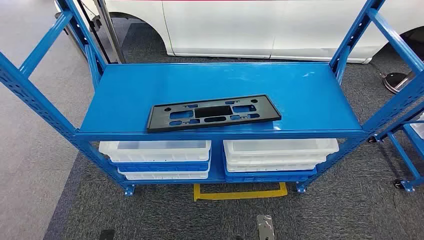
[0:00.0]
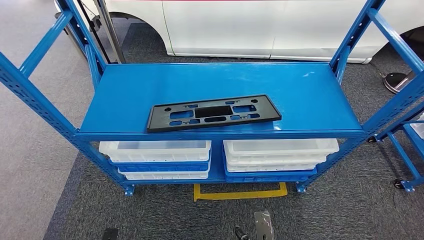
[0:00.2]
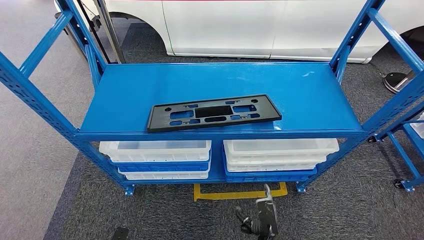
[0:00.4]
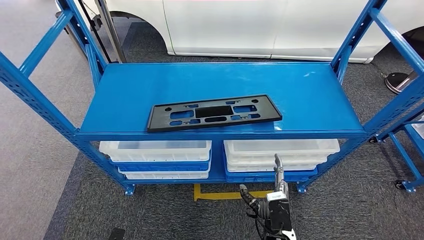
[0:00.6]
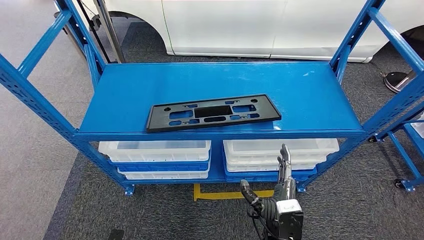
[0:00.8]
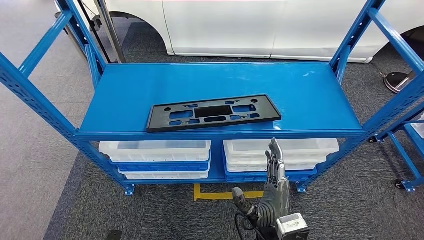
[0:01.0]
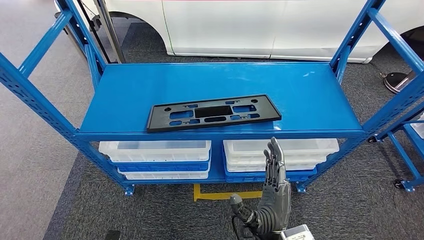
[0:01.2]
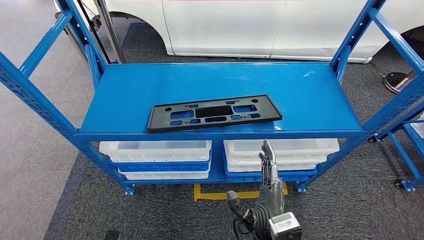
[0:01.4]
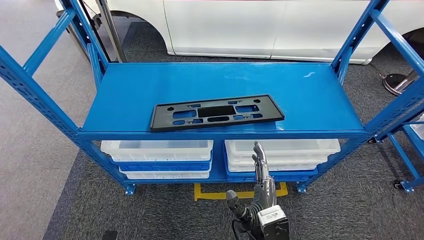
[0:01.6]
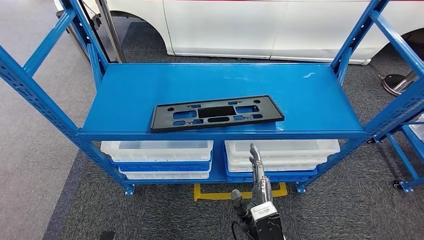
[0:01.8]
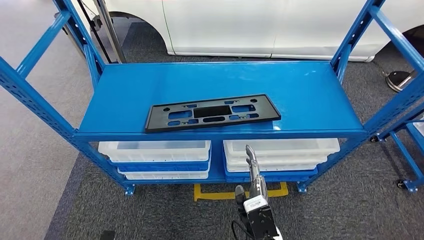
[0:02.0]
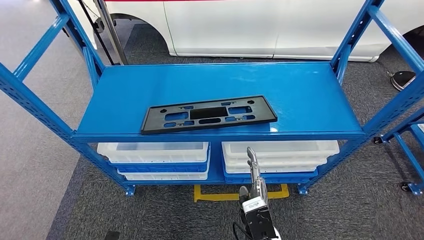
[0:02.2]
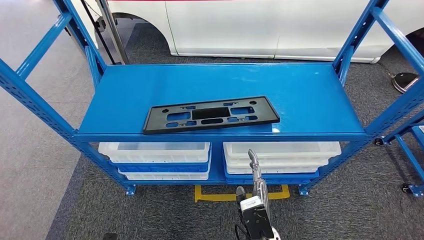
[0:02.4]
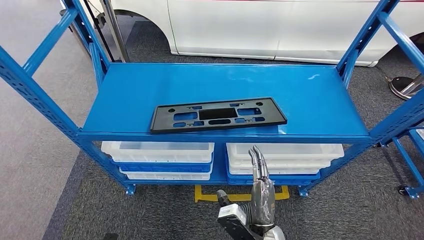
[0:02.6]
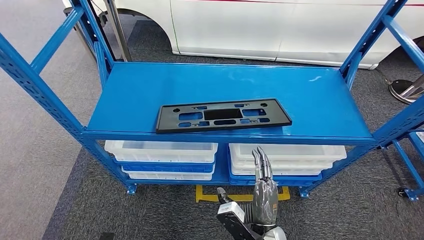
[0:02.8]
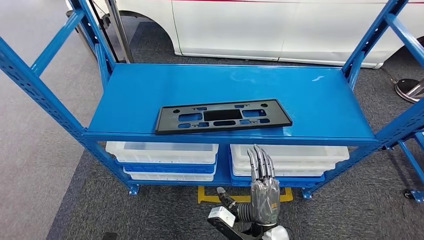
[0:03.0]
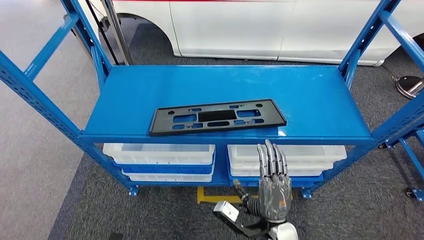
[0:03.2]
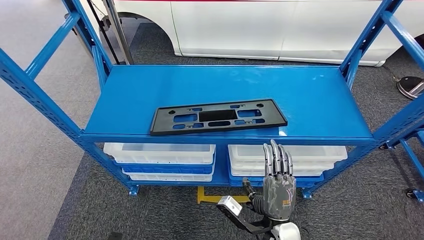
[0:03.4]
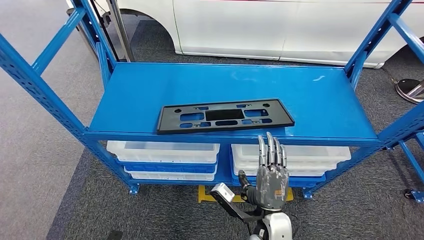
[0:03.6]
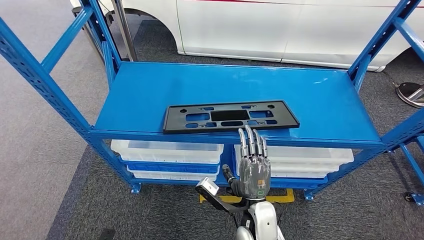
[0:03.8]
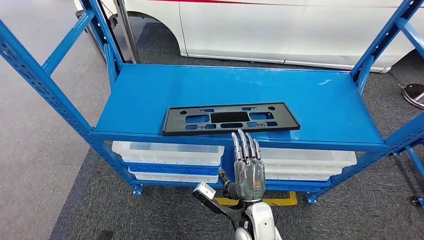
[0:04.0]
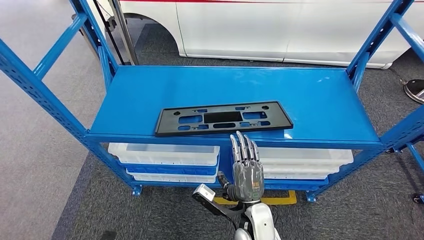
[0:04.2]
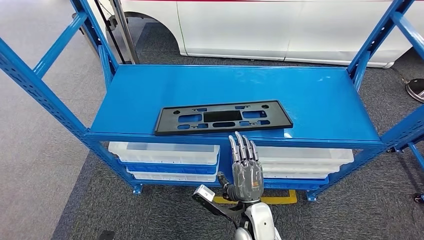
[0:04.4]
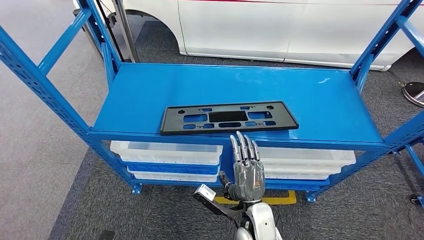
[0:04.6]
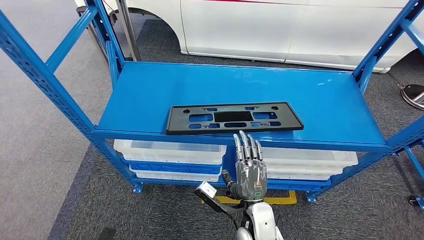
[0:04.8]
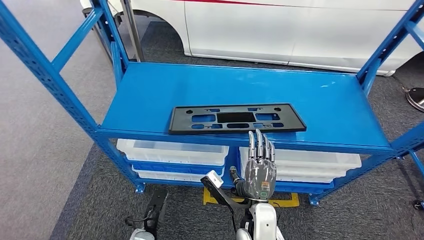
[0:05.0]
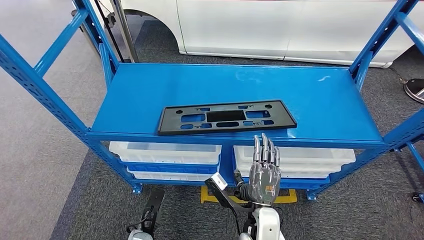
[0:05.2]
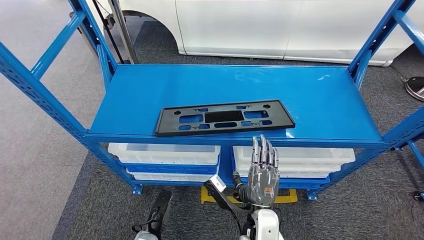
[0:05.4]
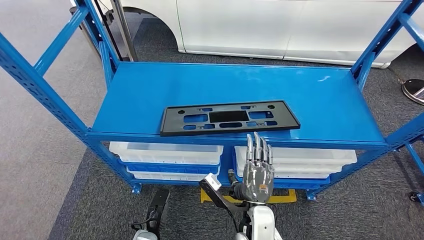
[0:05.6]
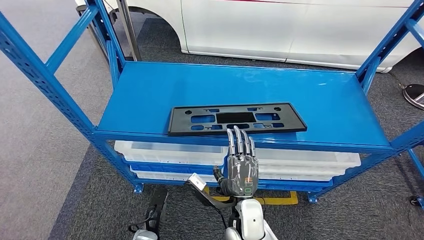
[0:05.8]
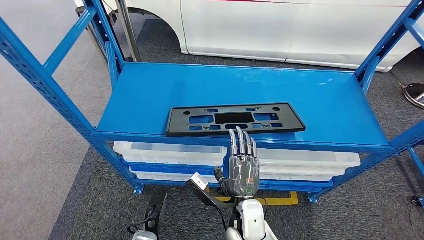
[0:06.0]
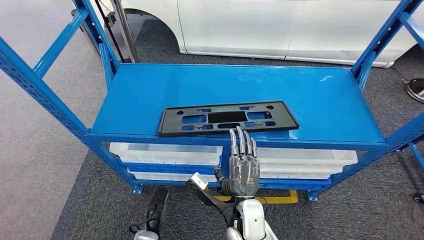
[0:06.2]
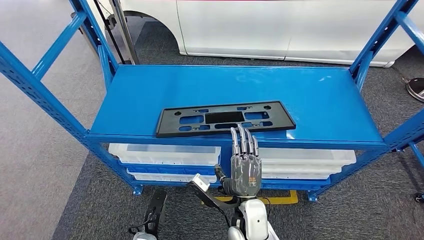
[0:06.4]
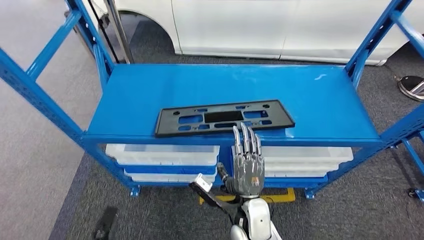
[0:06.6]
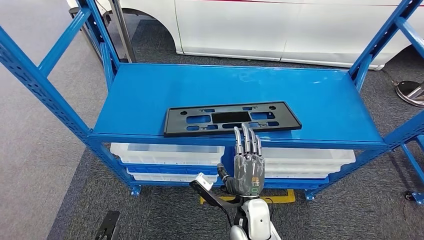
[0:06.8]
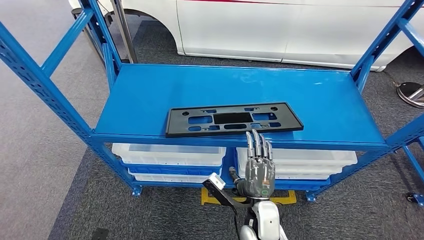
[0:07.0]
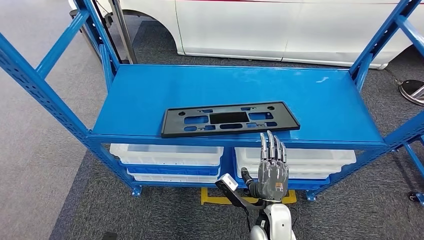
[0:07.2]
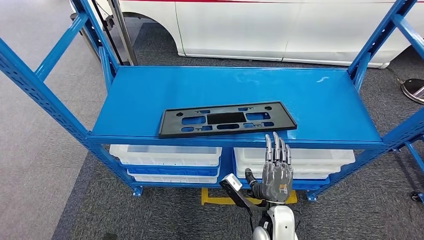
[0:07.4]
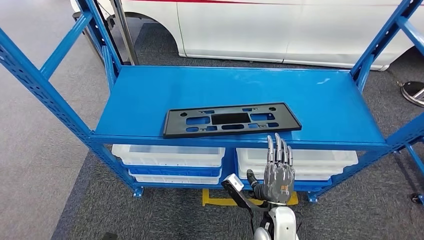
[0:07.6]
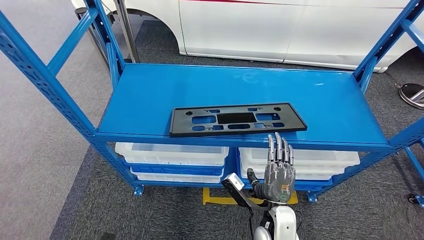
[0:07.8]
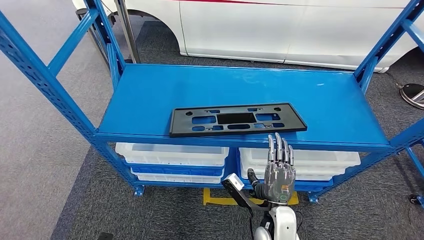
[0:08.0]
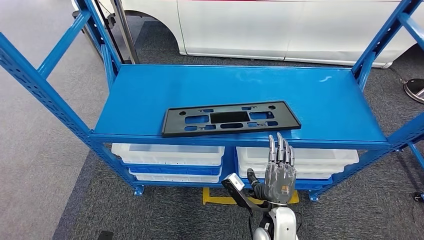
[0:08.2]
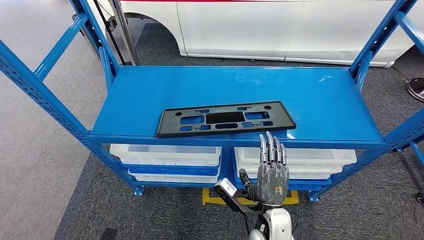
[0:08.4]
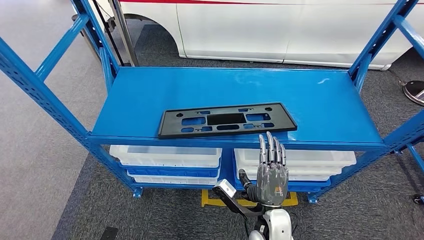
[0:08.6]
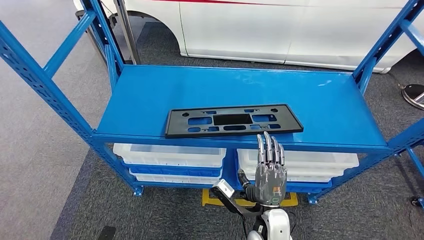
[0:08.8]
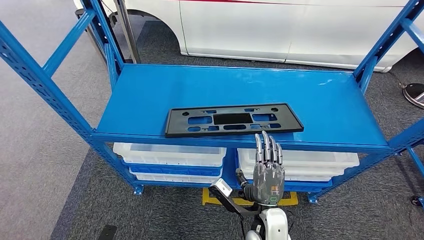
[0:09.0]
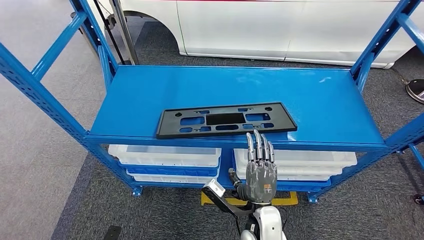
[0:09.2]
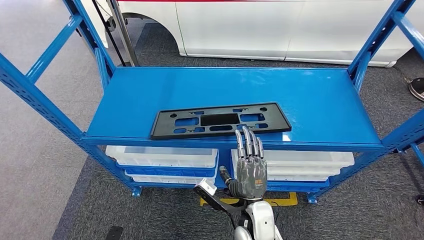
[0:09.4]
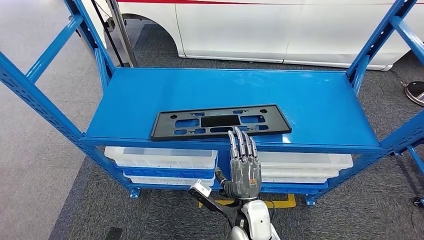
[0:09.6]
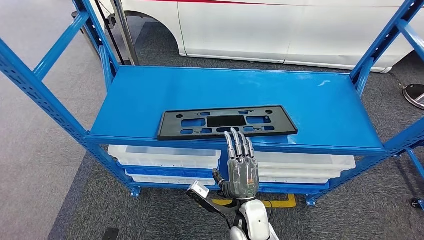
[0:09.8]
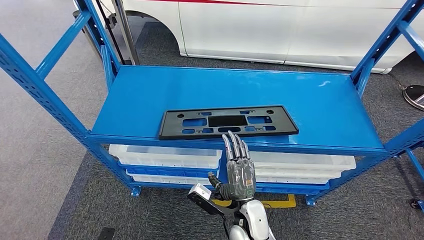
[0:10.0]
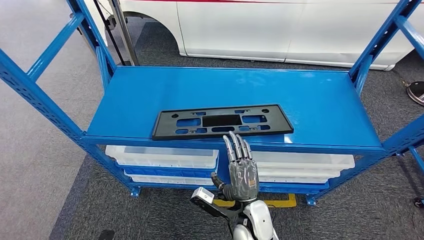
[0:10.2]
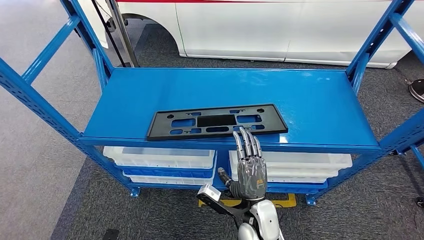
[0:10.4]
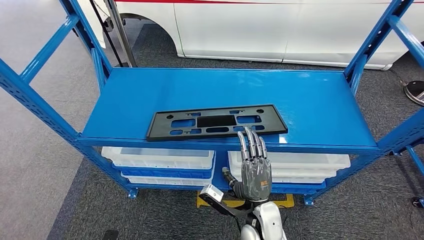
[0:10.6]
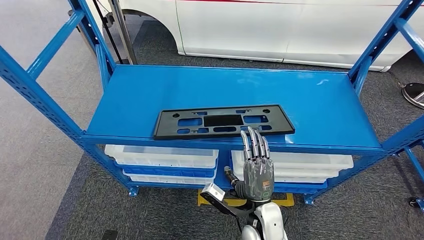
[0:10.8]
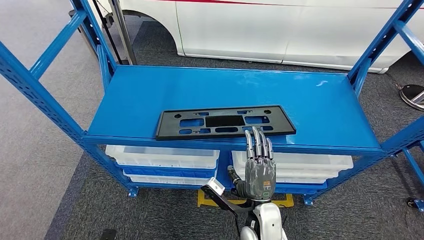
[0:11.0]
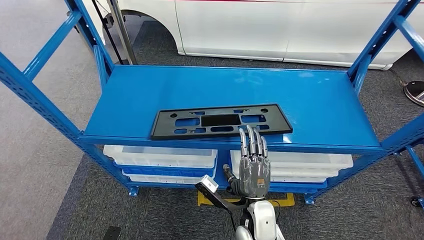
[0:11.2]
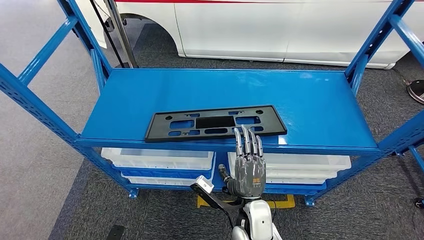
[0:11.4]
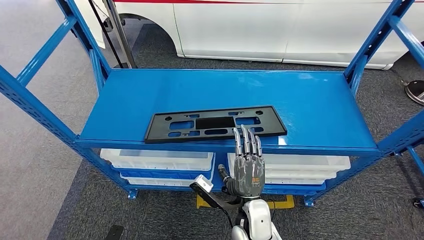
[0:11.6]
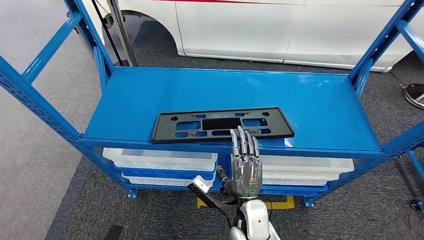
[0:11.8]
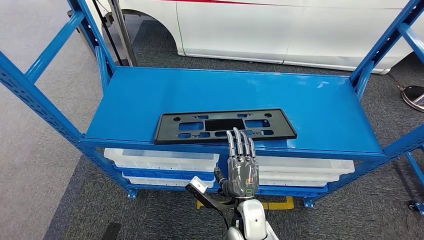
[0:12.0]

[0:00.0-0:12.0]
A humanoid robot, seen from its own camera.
0:03.0 to 0:04.4: The right hand changes place by some 5 cm.
0:06.0 to 0:07.6: The left hand shifts approximately 20 cm to the left, backward and downward; the right hand travels to the right by approximately 5 cm.
0:07.6 to 0:09.0: The hands move only a little.

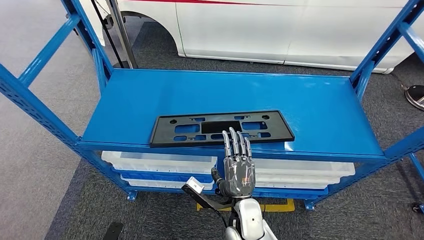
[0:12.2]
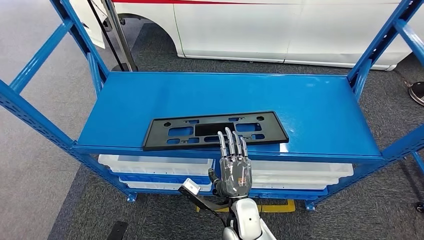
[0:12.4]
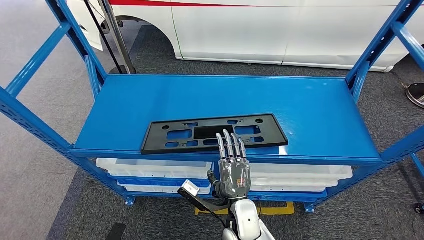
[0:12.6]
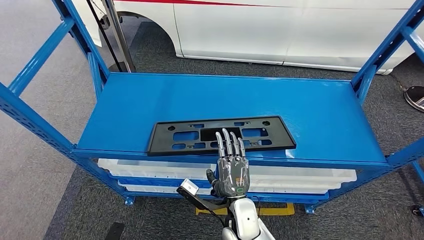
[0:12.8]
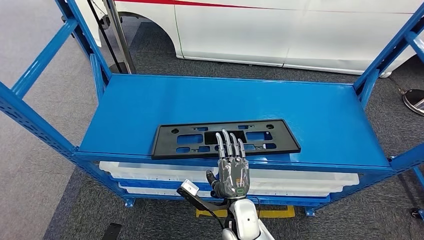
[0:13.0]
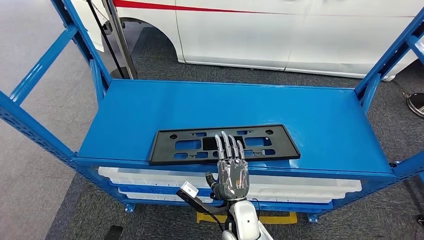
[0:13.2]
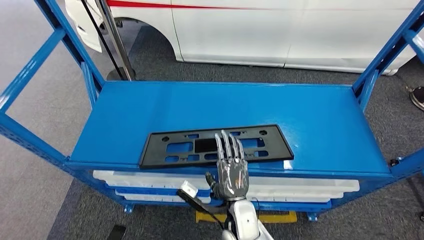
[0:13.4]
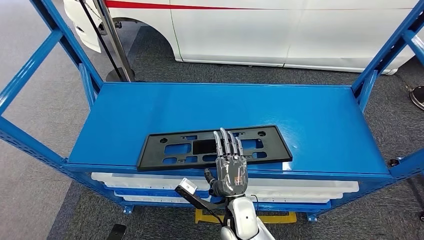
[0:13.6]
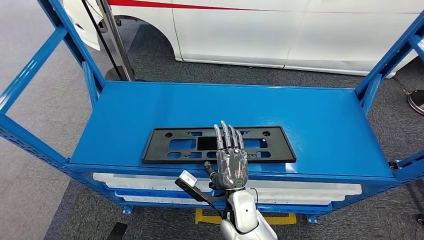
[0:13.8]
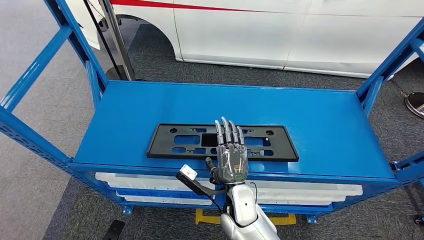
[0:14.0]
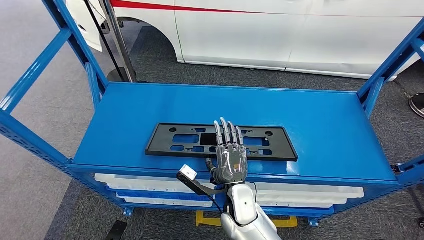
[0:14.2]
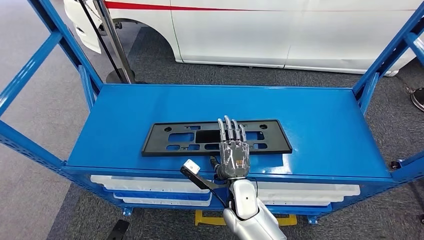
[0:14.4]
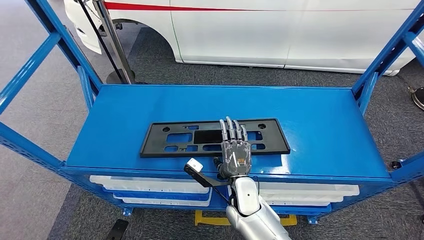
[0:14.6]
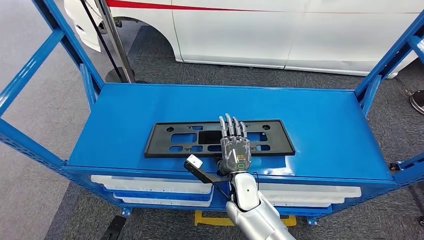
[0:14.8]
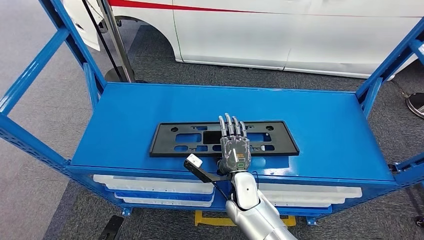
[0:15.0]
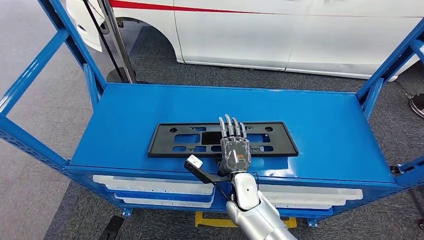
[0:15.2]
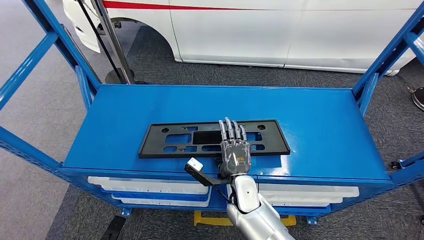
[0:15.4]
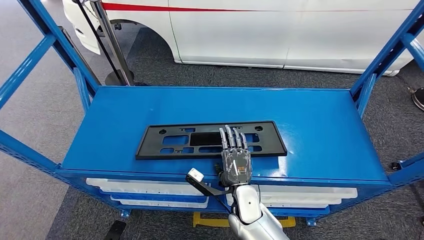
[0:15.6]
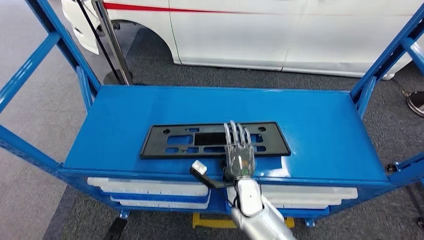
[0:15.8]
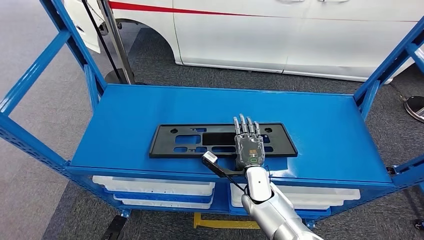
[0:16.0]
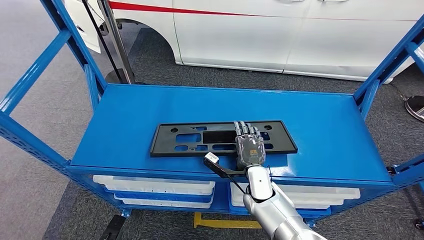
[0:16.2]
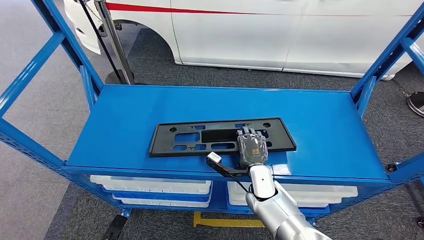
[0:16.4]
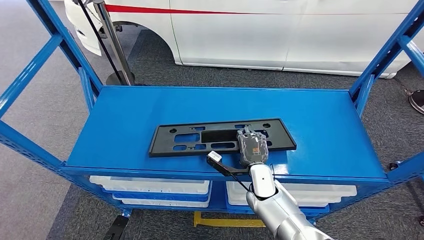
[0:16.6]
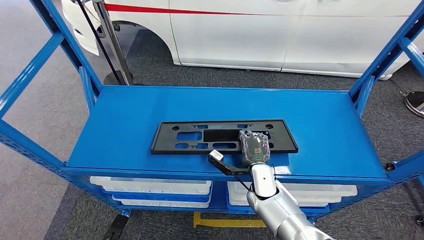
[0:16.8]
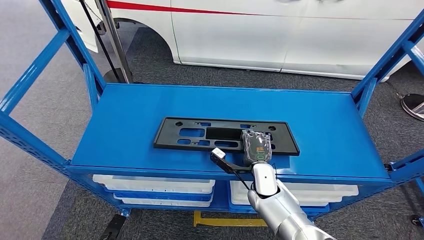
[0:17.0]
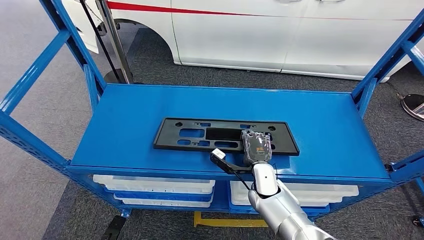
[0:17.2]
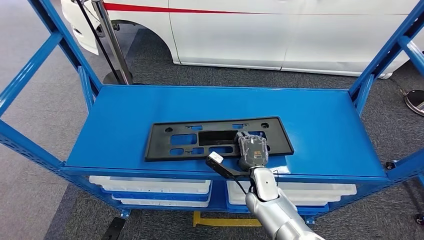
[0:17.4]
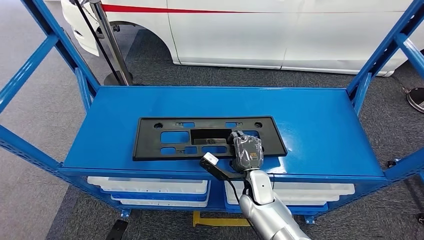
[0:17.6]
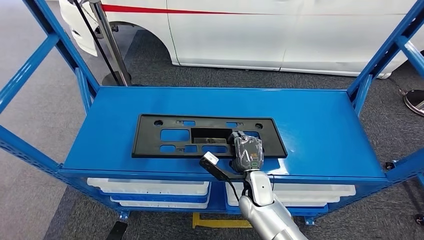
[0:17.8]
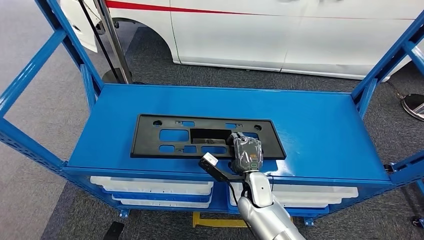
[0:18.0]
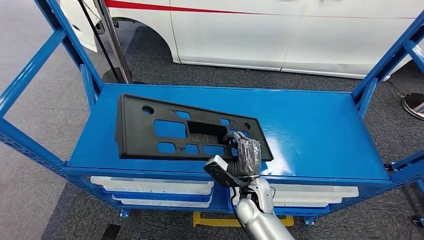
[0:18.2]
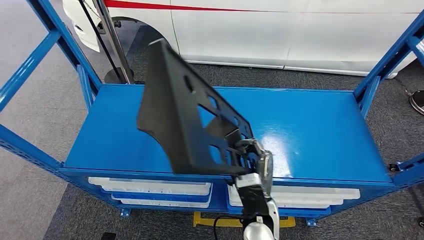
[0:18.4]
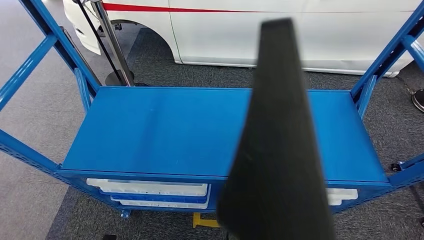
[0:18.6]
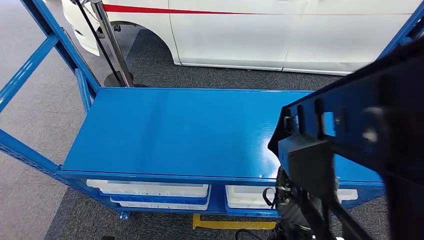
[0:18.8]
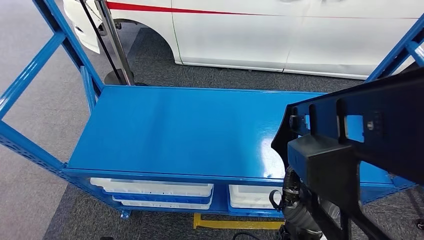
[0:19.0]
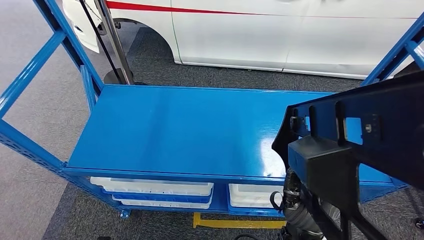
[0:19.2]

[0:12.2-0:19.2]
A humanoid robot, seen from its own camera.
Step, 0:12.2 to 0:19.2: Pick up the large parts from the shelf.
0:15.0 to 0:16.4: The right hand heads to the right, covering approximately 5 cm.
